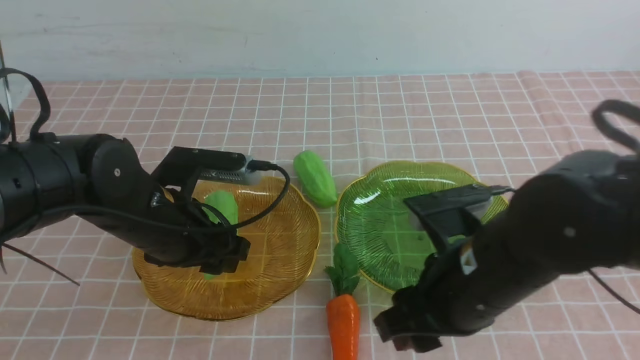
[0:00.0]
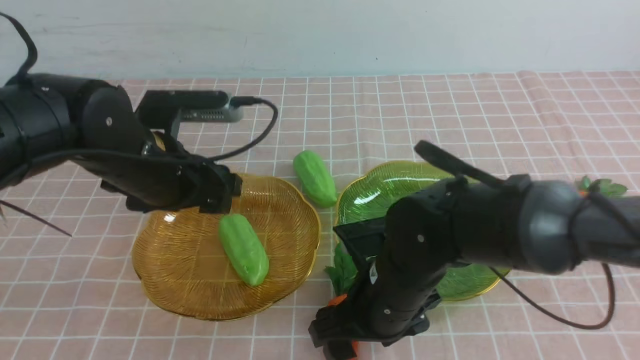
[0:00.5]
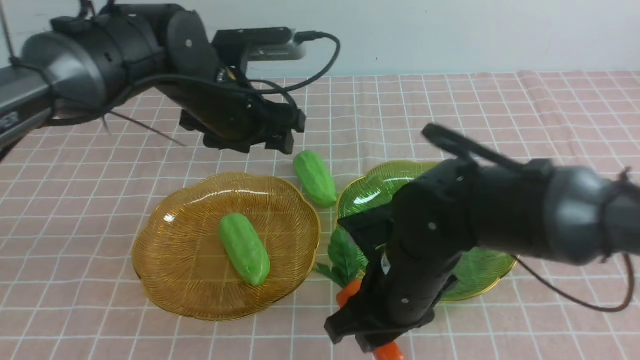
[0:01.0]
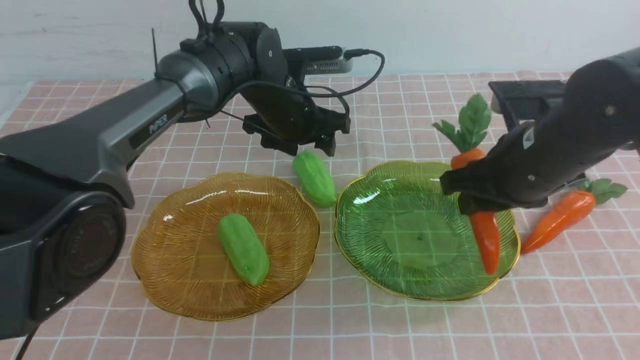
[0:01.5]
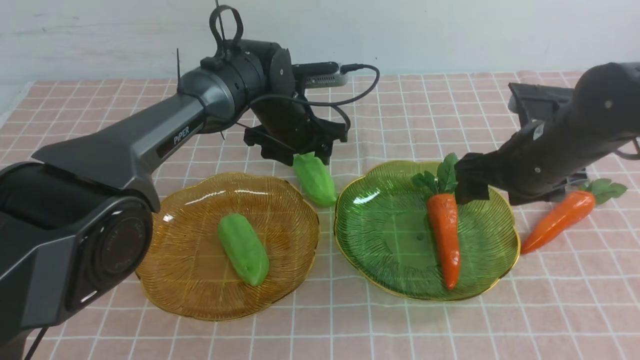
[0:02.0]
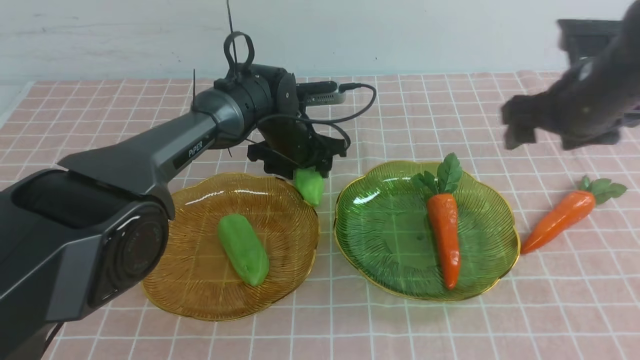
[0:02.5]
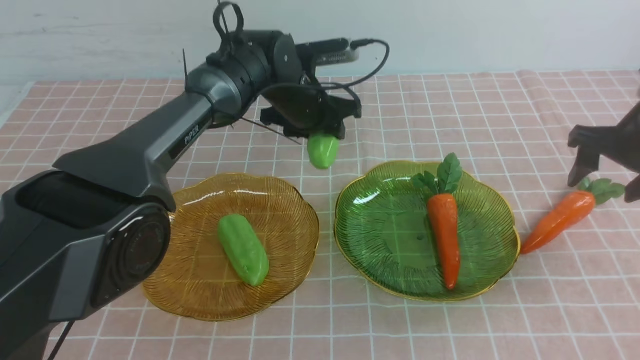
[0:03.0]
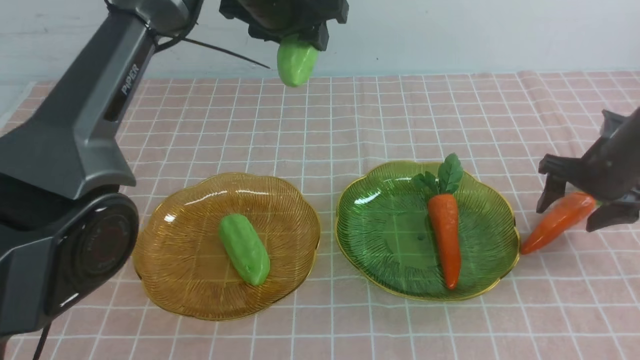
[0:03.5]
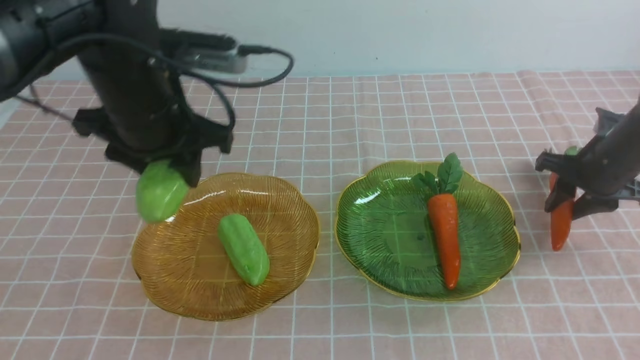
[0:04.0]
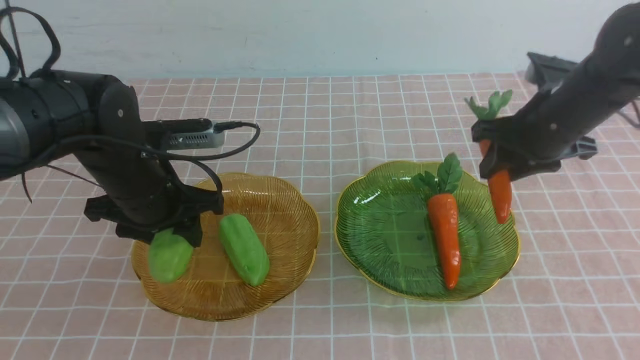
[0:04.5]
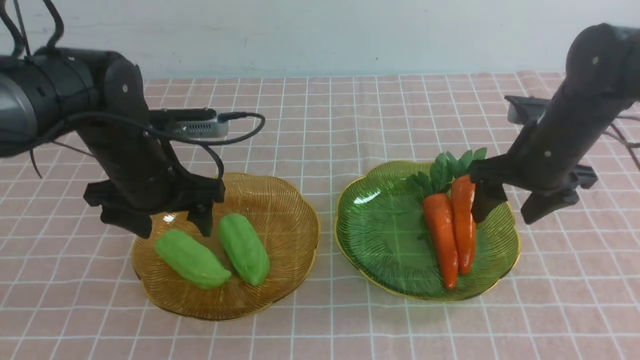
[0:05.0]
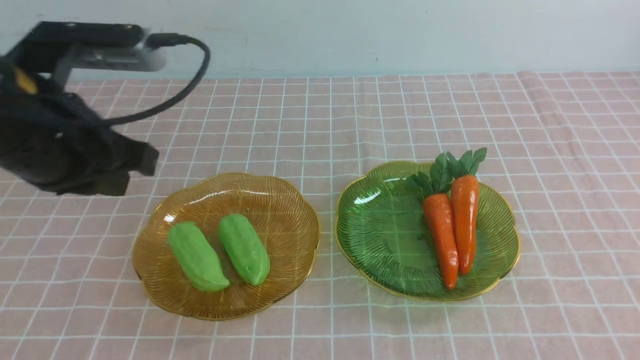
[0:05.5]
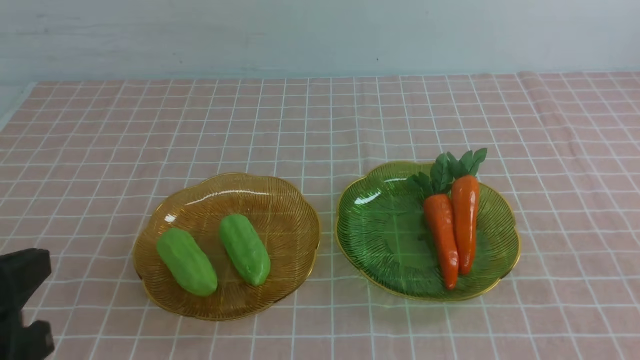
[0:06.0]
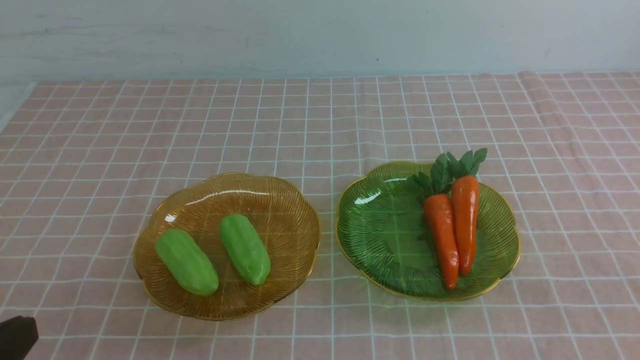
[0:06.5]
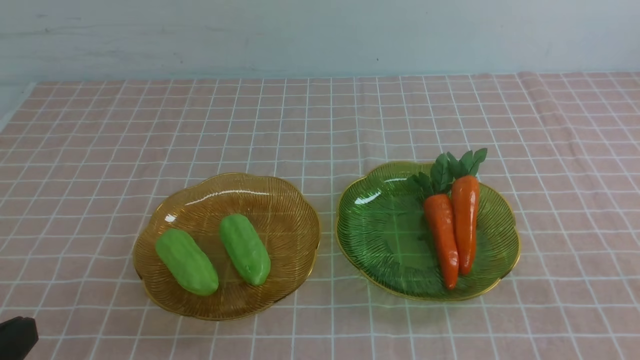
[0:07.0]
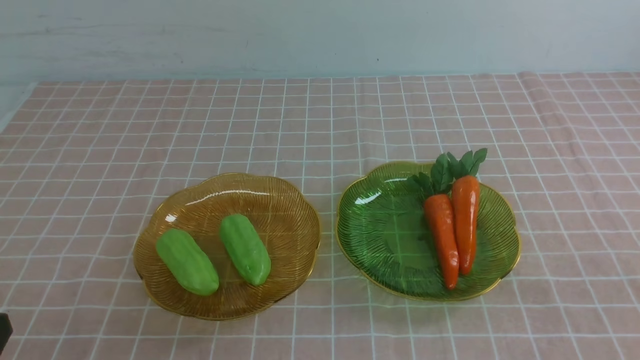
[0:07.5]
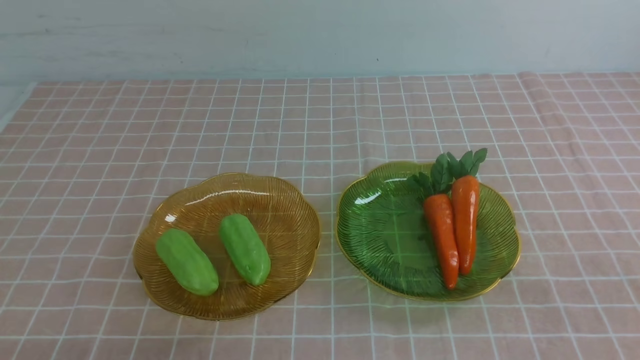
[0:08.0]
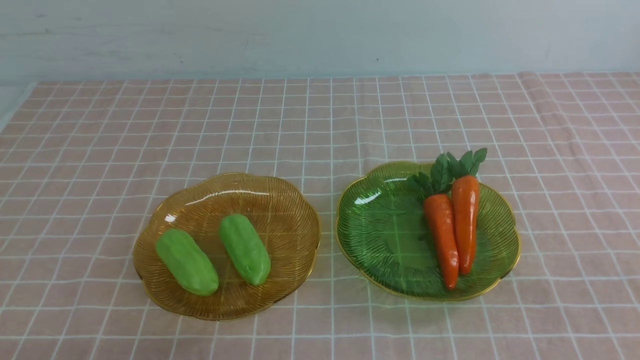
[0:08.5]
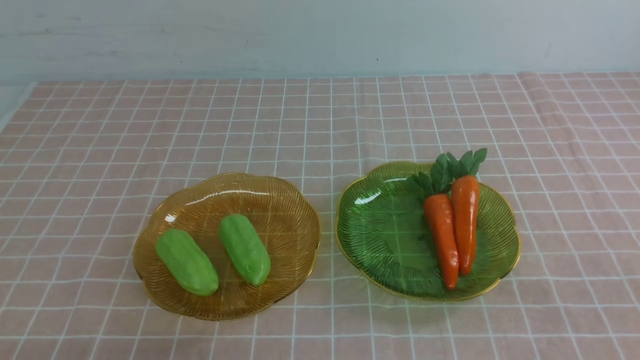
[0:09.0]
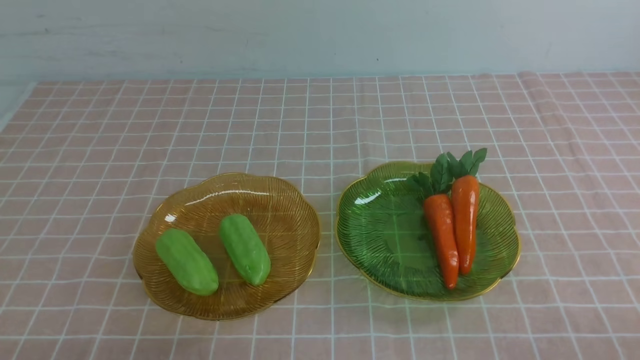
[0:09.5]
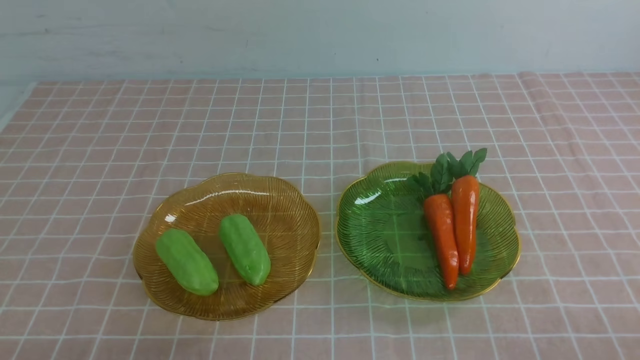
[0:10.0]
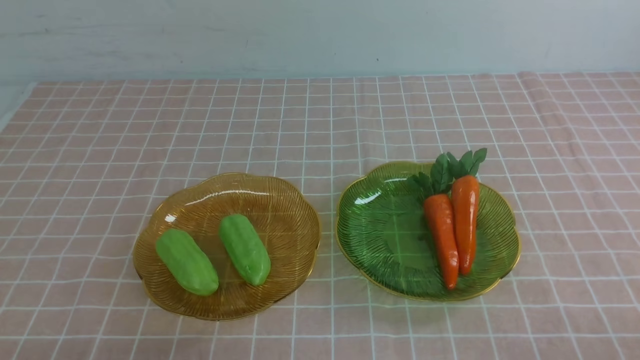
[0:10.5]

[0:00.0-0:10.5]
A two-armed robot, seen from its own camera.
Step, 0:00.5 to 0:01.5: use the right arm to grab a carrot and put it into the right plate.
Step, 0:02.0 to 0:03.0: use the left arm to grab a chayote and put it into the left plate.
Step, 0:03.5 to 0:05.0: use the right arm to grab a carrot and put it into the right plate.
0:00.0 to 0:02.0: The right gripper moves to the right and forward, roughly 20 cm, and closes and opens again, while the left gripper shifts approximately 20 cm forward and to the right.
0:02.0 to 0:04.0: The left gripper goes some 20 cm backward, upward and to the left. Meanwhile the right gripper is displaced to the right, downward and forward by some 15 cm, and closes.
0:04.0 to 0:06.5: Both grippers travel together backward, roughly 35 cm. The left gripper closes up, while the right gripper closes.
